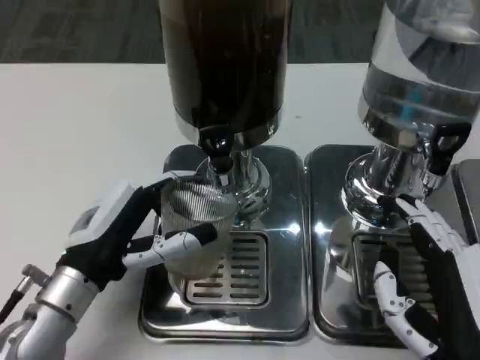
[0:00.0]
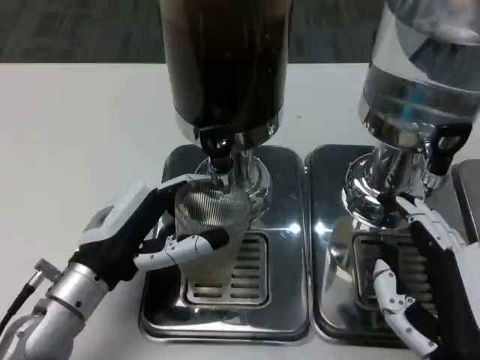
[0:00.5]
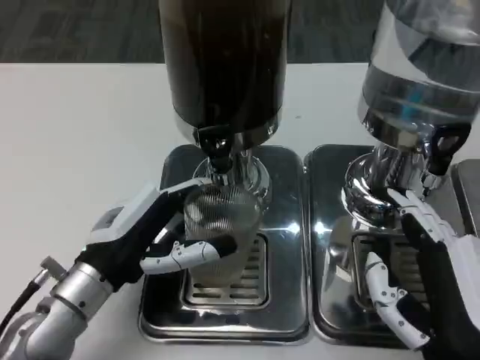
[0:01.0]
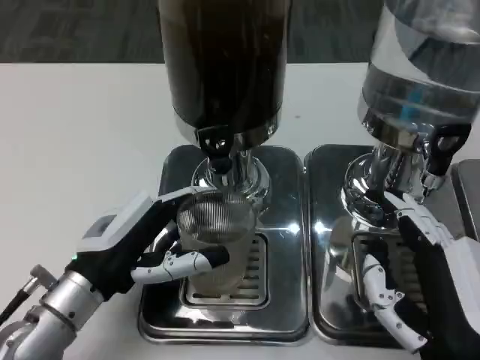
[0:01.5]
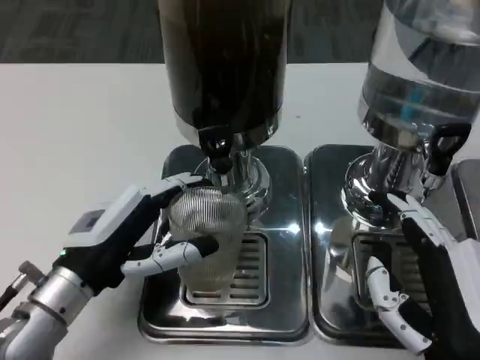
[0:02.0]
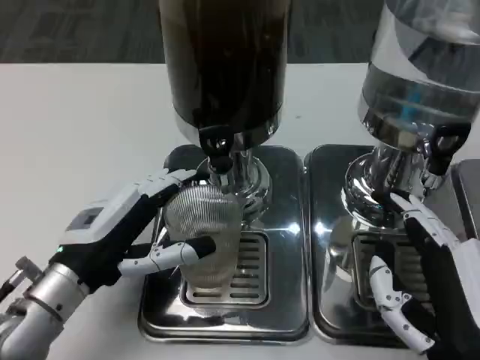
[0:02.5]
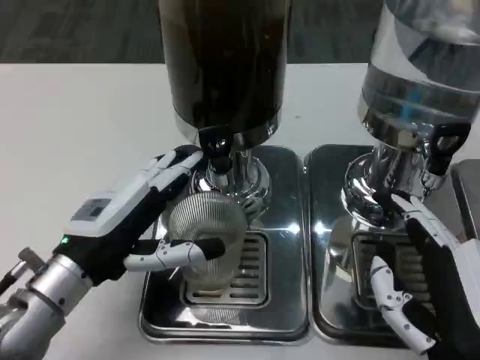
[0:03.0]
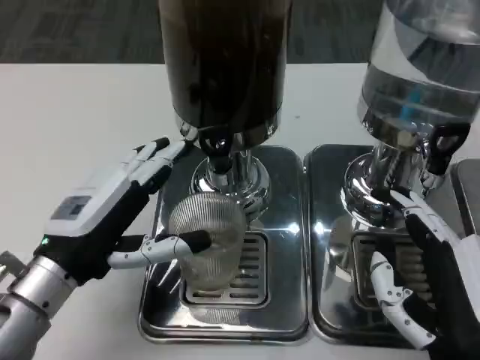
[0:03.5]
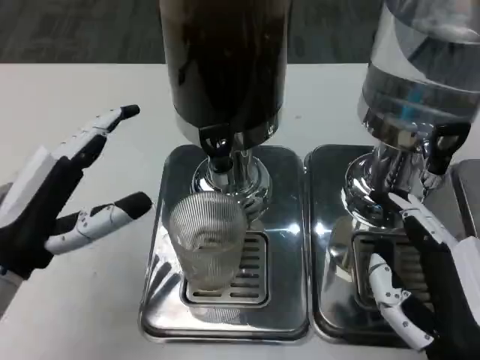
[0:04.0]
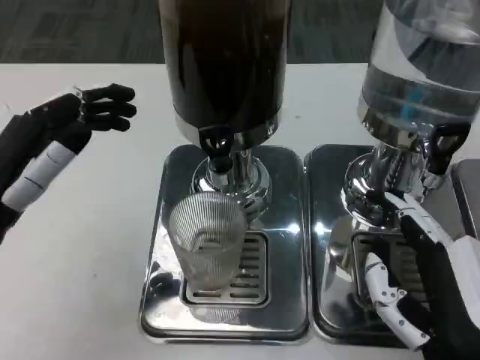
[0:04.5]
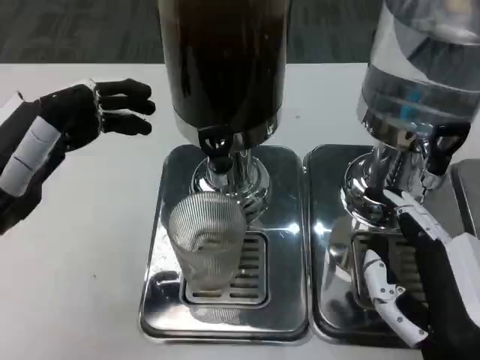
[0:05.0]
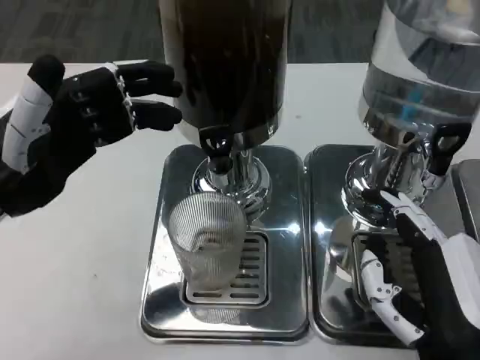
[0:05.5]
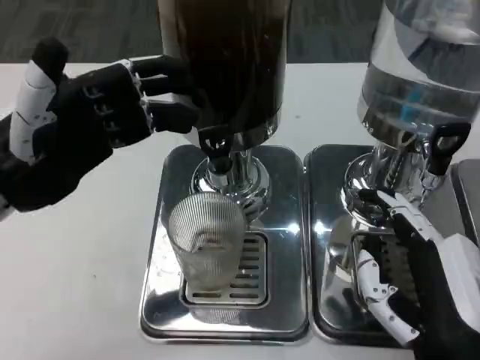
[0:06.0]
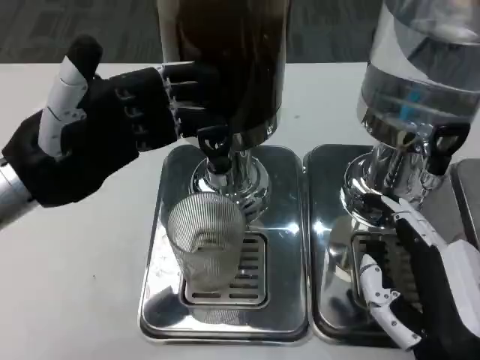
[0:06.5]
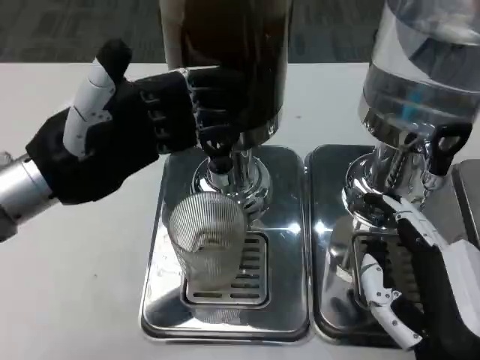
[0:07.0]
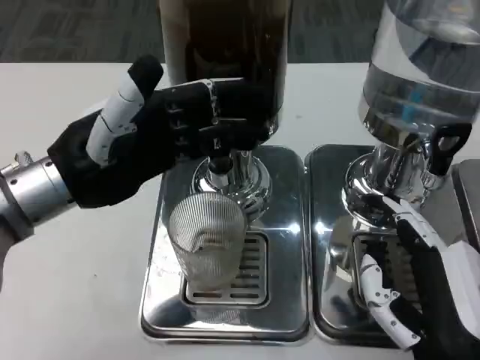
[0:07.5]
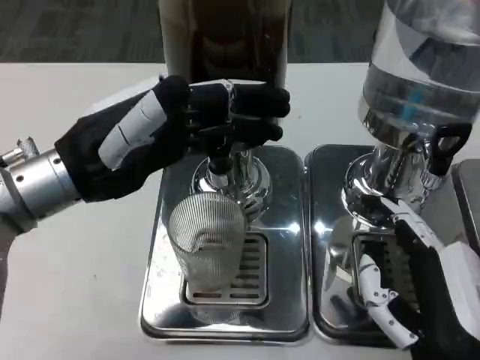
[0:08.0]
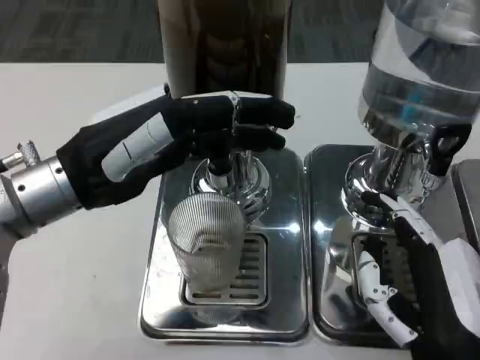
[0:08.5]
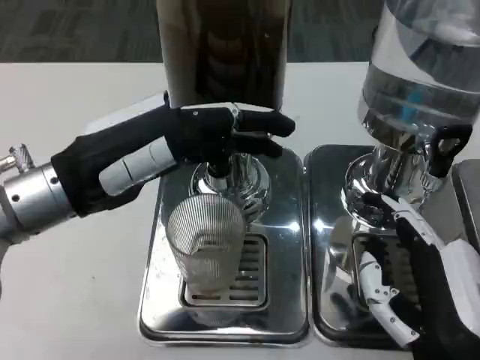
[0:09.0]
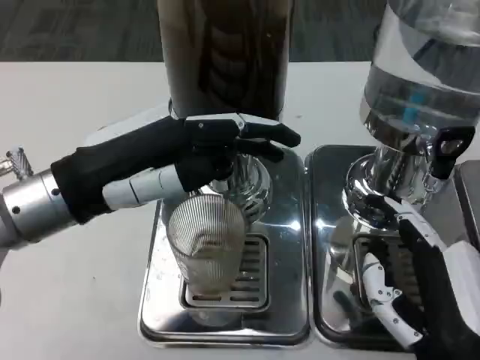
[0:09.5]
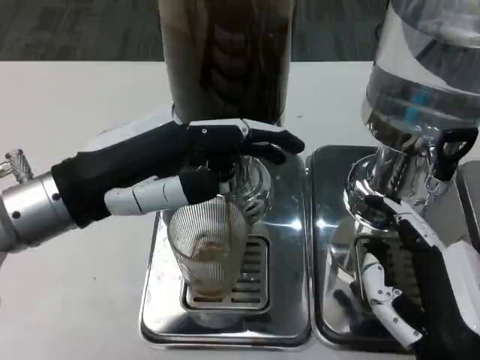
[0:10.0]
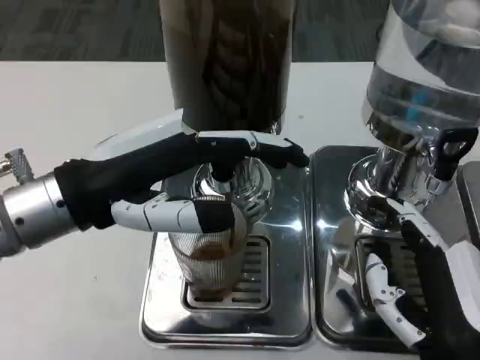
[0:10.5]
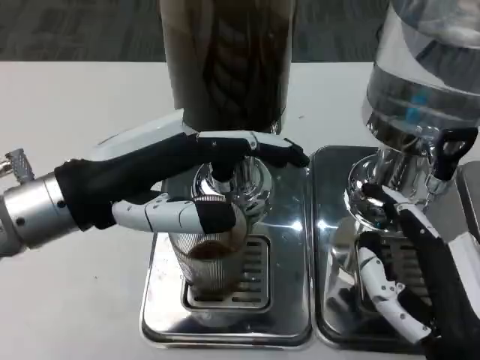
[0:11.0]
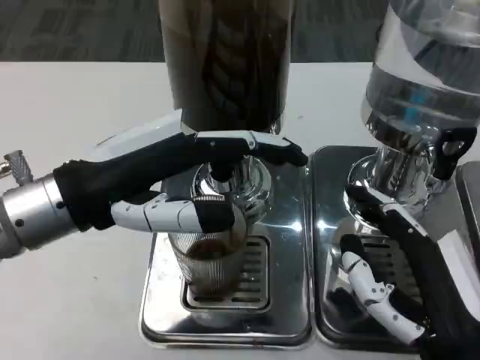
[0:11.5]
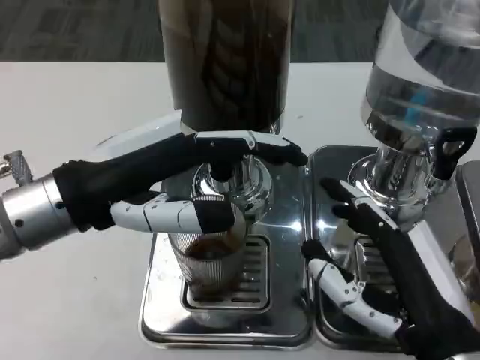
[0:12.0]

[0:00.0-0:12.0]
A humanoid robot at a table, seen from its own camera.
Task of the whole recording: Grasp the cup under the faucet to collect the drink, then remove the cup.
0:00.0 to 0:02.0: The hands move only a little.
0:02.0 to 0:04.0: The left hand moves approximately 5 cm.
0:04.0 to 0:06.0: The left hand heads upward and forward, covering some 10 cm.
0:06.0 to 0:08.0: The left hand changes place by some 5 cm.

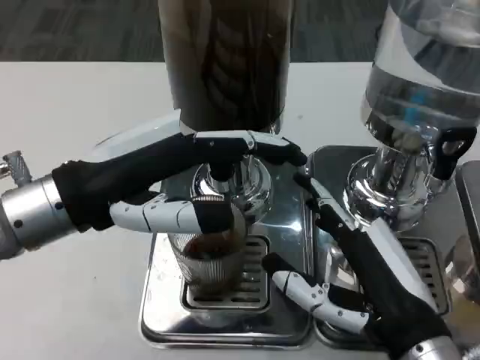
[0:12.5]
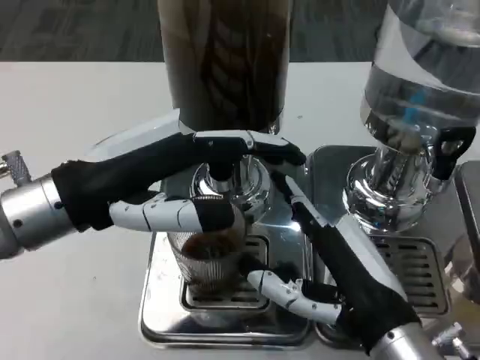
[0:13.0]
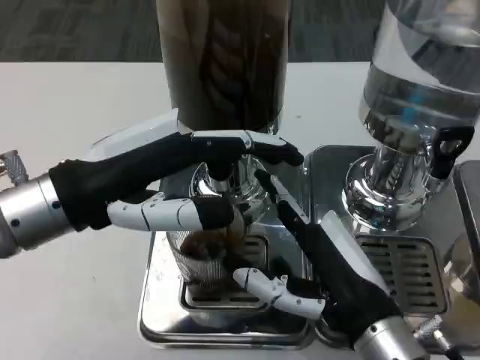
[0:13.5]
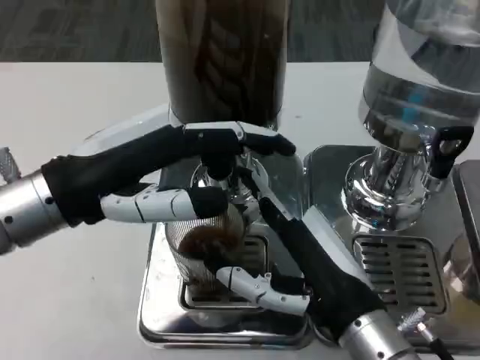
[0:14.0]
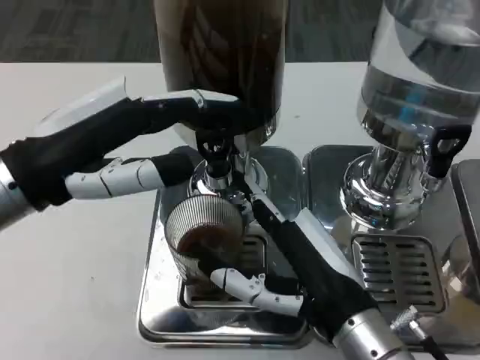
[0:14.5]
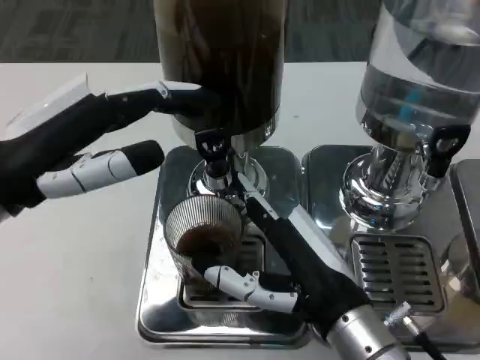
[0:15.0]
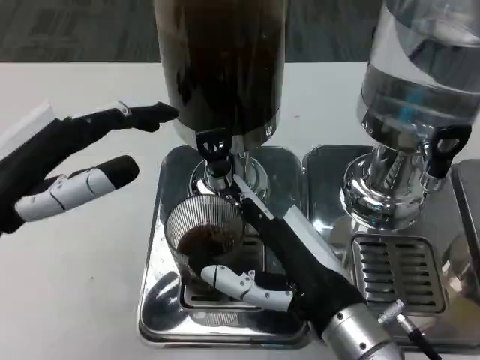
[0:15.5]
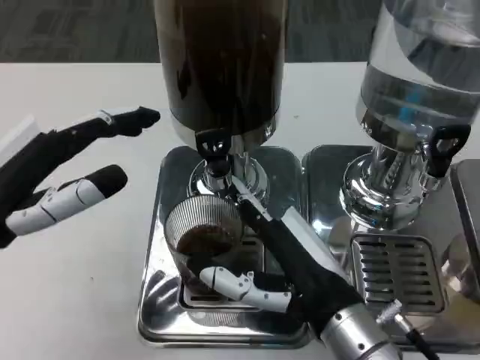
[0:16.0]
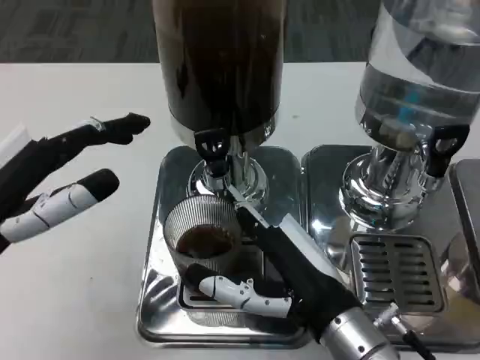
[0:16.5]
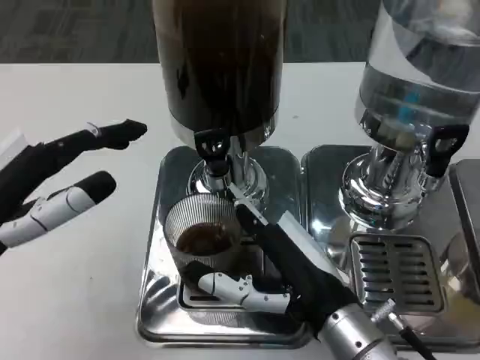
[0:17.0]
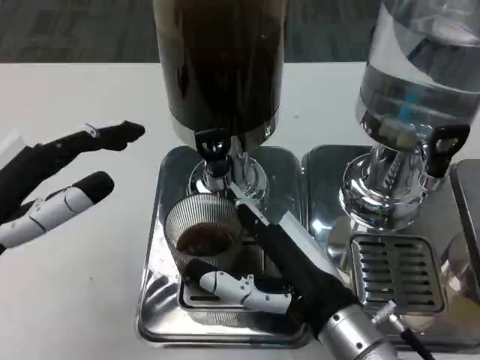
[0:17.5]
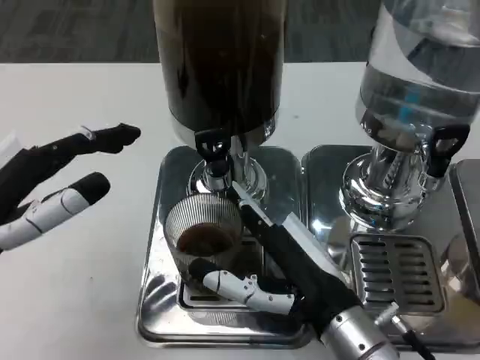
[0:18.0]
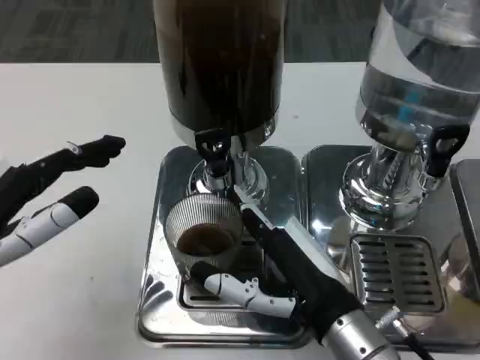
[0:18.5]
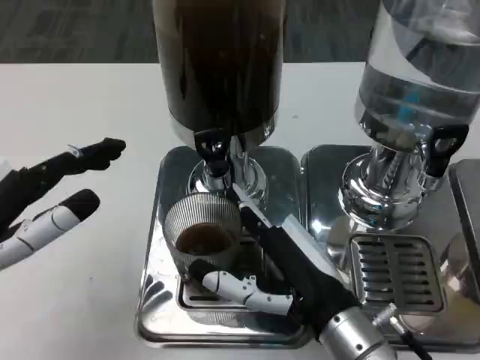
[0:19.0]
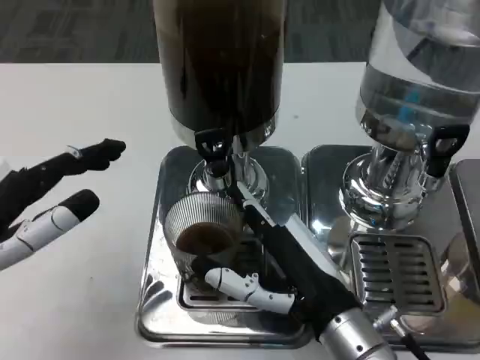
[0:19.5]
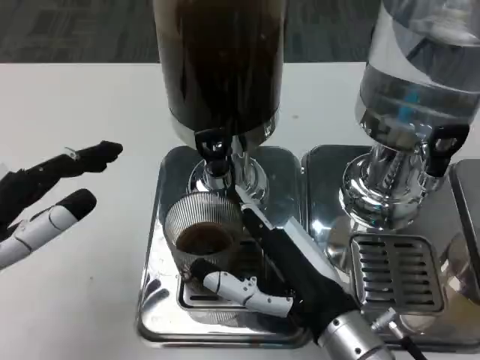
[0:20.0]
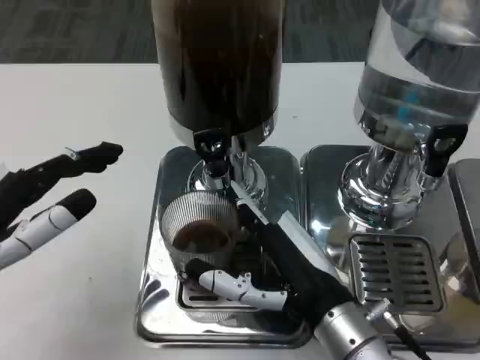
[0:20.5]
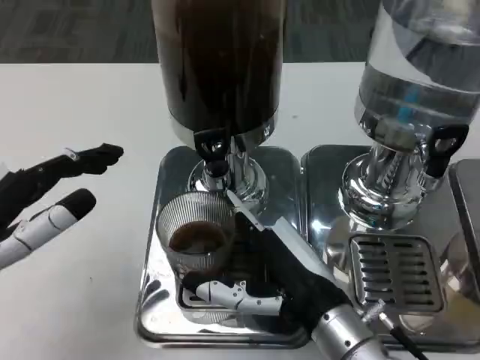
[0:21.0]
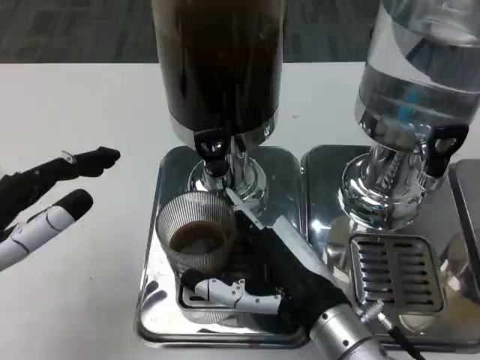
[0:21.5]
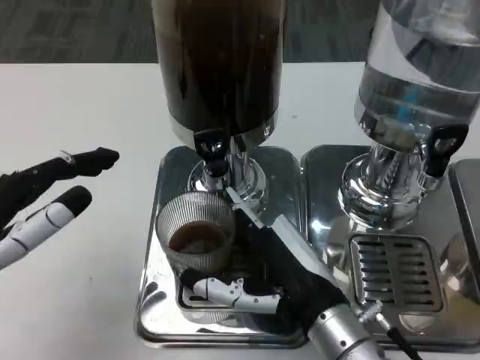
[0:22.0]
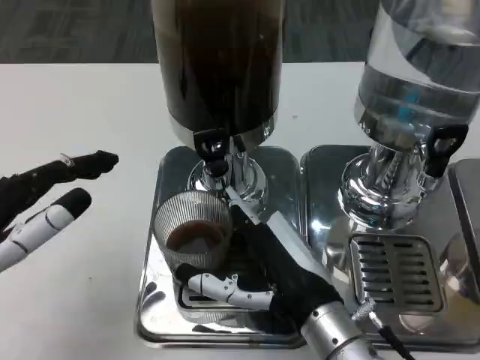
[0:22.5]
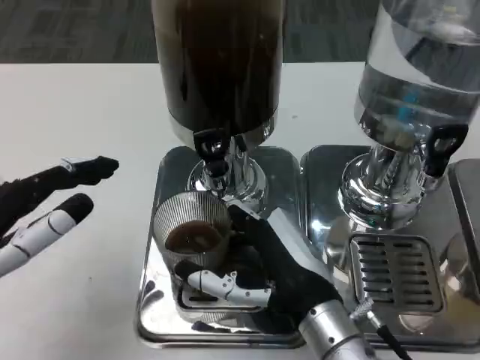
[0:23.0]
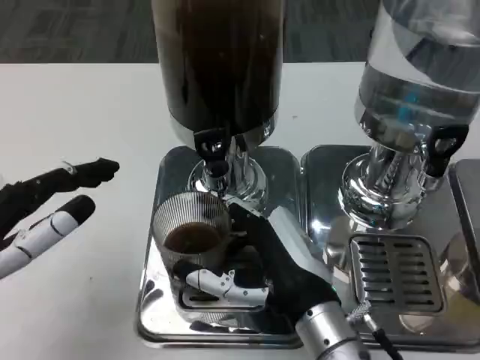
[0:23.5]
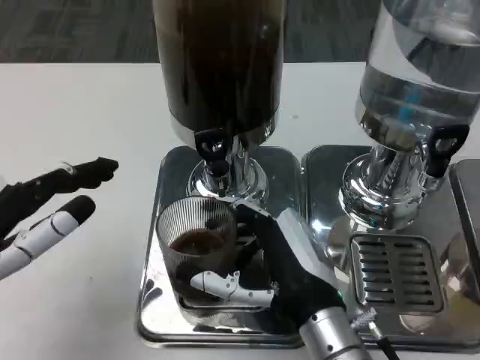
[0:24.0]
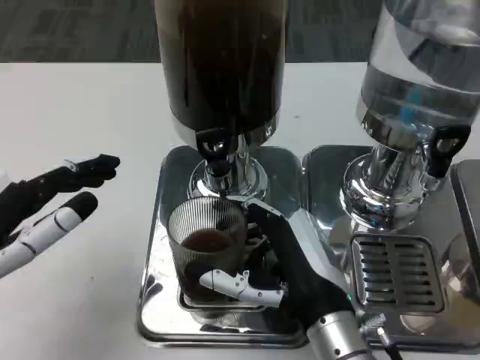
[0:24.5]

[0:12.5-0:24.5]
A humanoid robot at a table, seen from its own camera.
Task of the whole recording: Grasp the cup under the faucet to collect the drink, then remove the cup.
0:12.5 to 0:14.5: The right hand shifts by some 5 cm.
0:14.5 to 0:16.5: The left hand moves backward, some 5 cm.
0:16.5 to 0:18.5: The hands make only small movements.
0:18.5 to 0:20.5: The two hands keep their place.
0:20.5 to 0:22.5: Both hands stay put.
0:22.5 to 0:24.5: The hands move only a little.

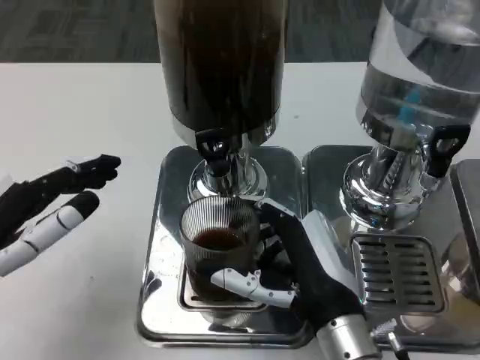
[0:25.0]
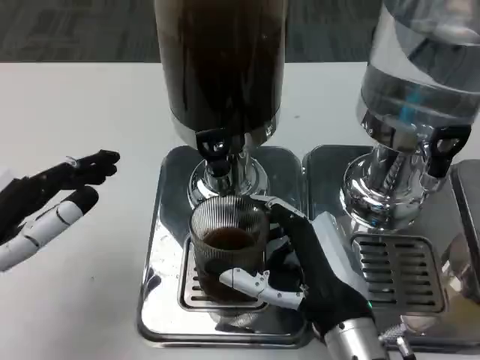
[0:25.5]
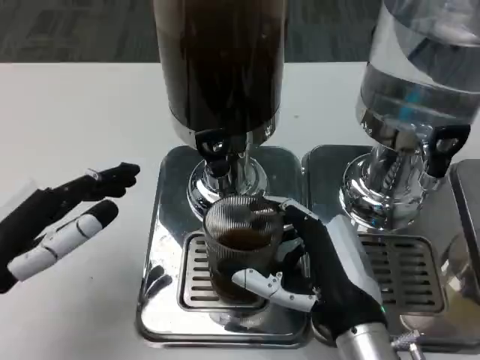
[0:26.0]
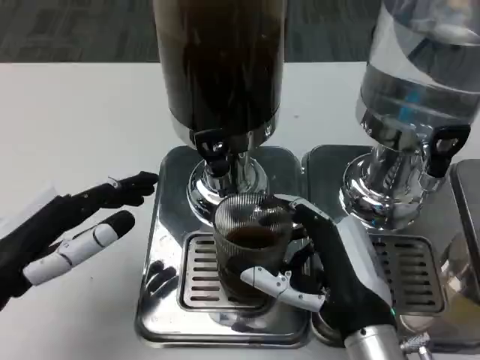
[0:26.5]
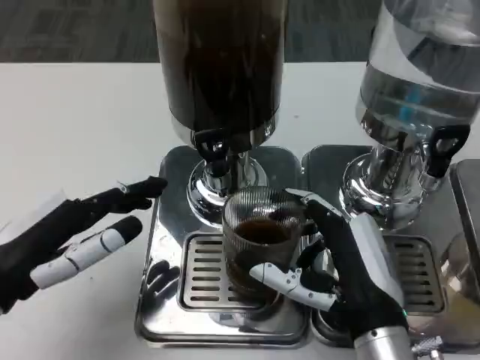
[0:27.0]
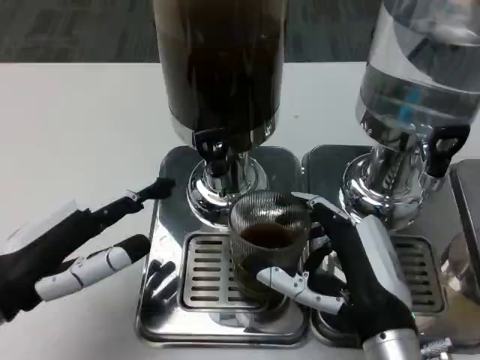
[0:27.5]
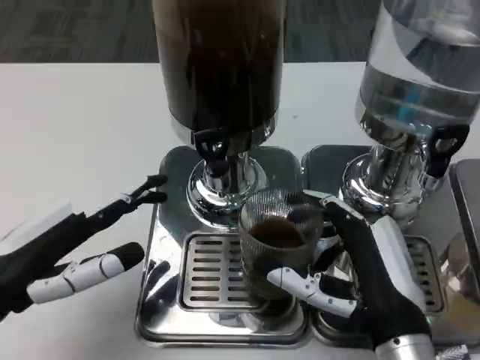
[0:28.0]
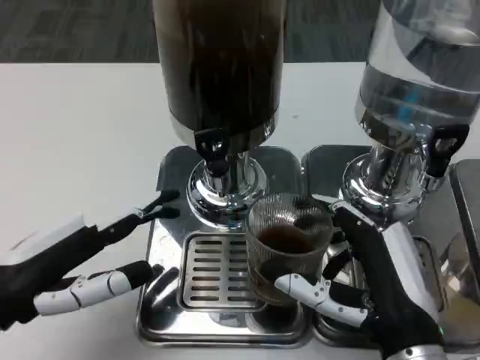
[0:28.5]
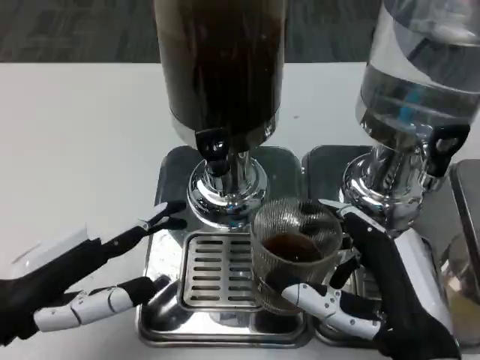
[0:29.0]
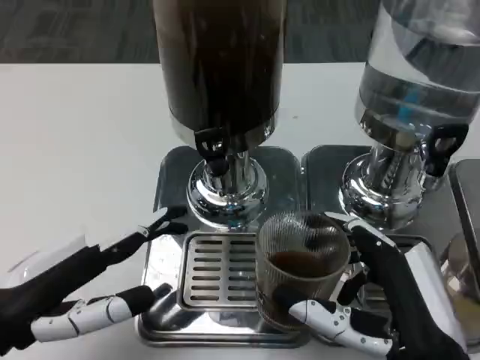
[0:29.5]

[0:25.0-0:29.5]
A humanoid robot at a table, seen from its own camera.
Task of the whole recording: Grasp the cup under the faucet to collect the drink, then remove the cup.
0:27.0 to 0:29.5: The right hand is displaced backward by some 5 cm.
